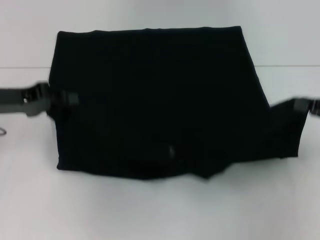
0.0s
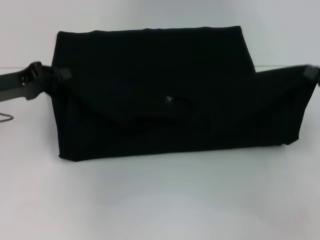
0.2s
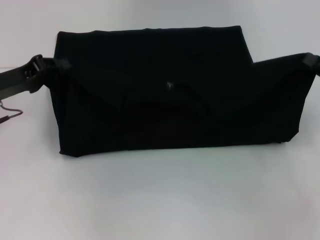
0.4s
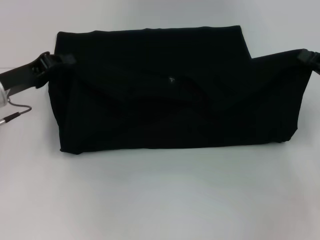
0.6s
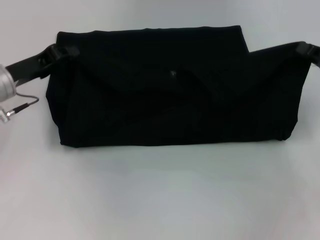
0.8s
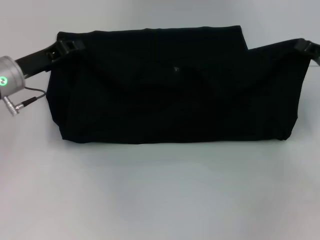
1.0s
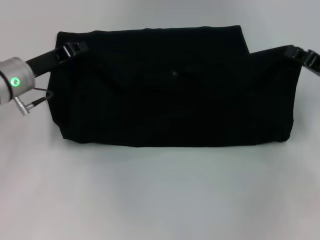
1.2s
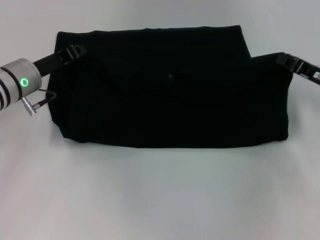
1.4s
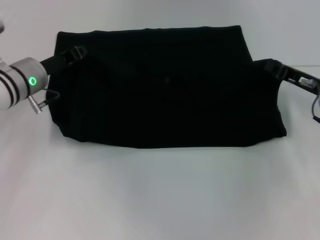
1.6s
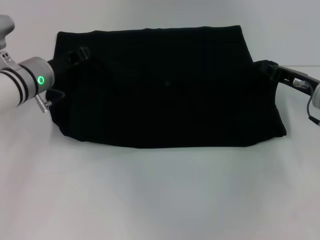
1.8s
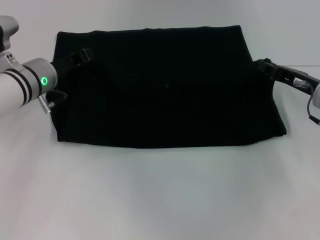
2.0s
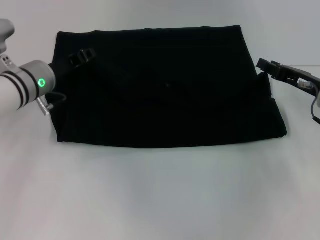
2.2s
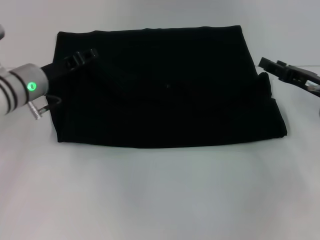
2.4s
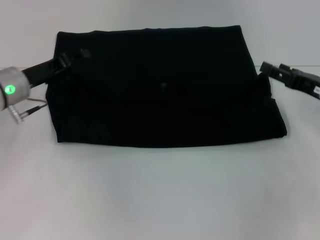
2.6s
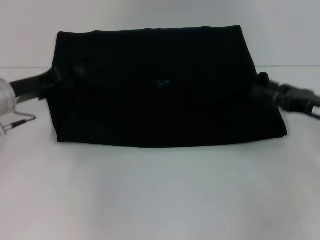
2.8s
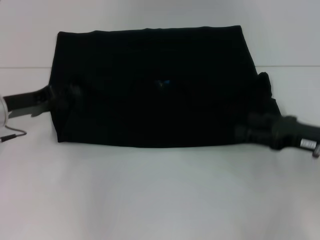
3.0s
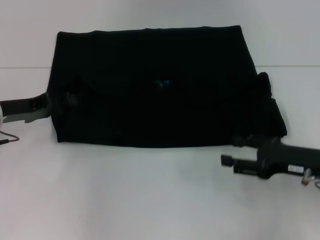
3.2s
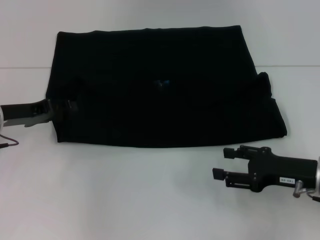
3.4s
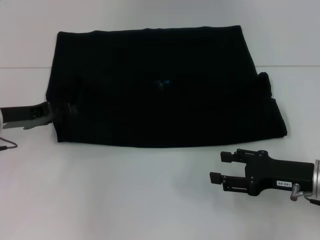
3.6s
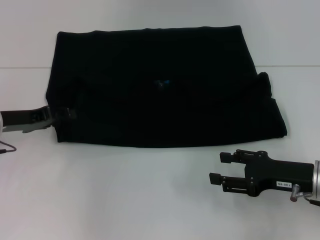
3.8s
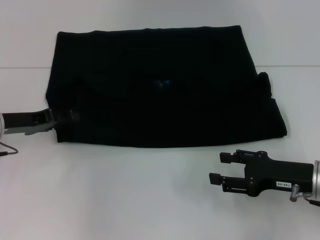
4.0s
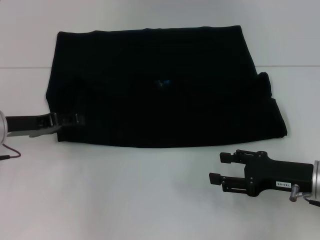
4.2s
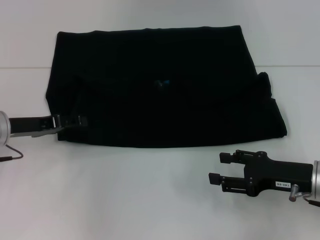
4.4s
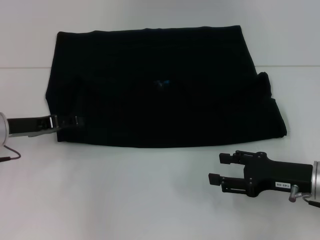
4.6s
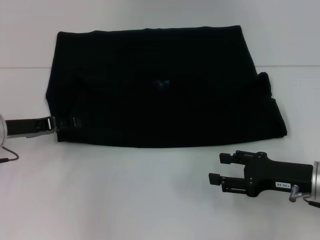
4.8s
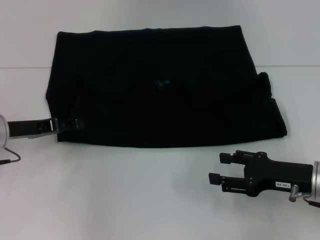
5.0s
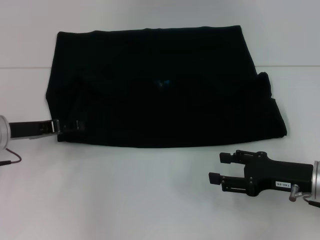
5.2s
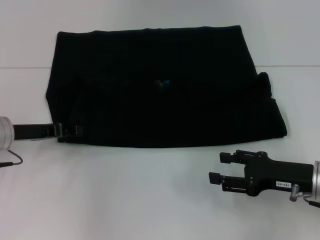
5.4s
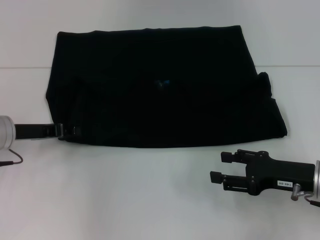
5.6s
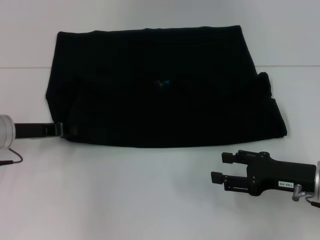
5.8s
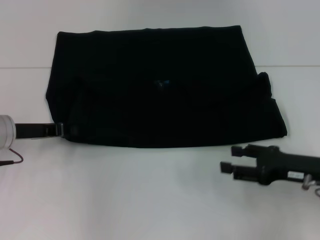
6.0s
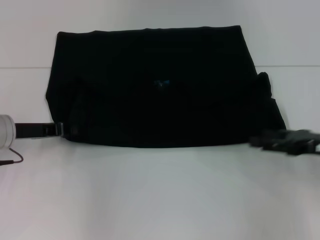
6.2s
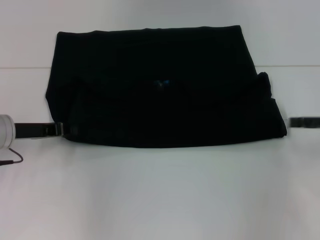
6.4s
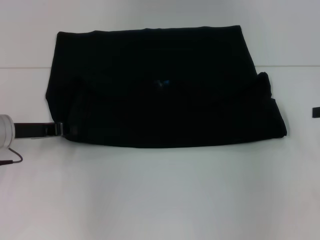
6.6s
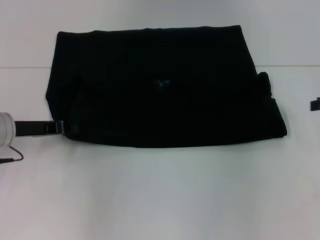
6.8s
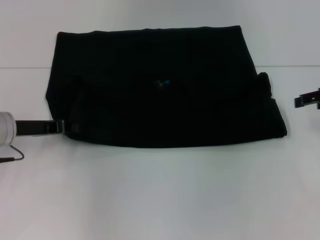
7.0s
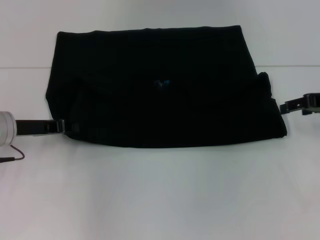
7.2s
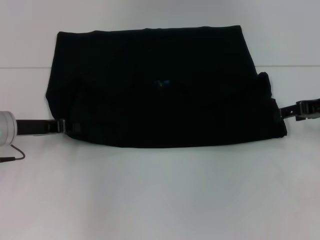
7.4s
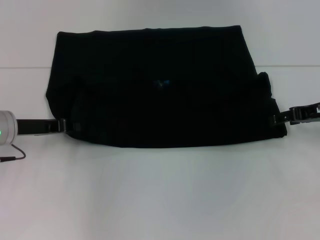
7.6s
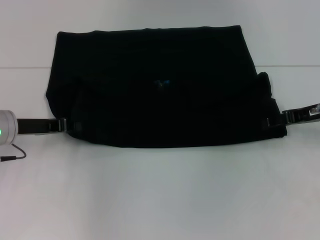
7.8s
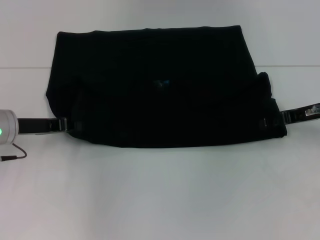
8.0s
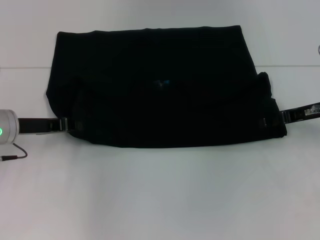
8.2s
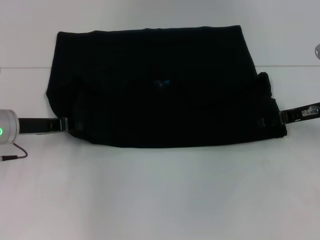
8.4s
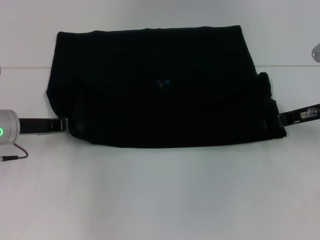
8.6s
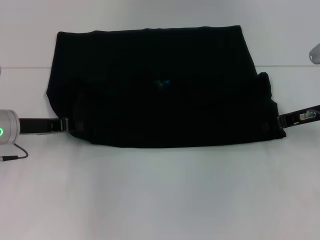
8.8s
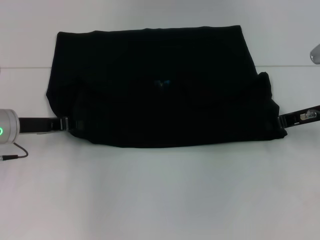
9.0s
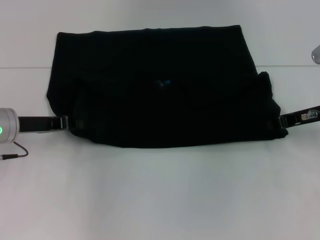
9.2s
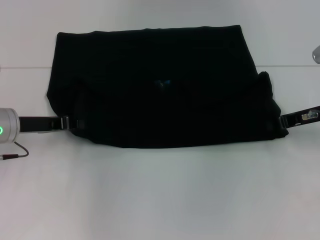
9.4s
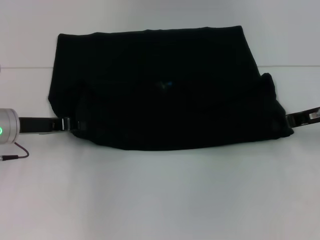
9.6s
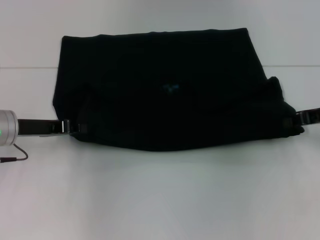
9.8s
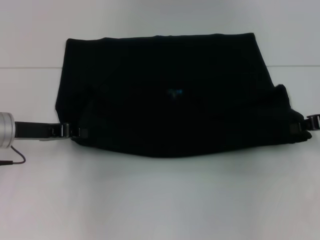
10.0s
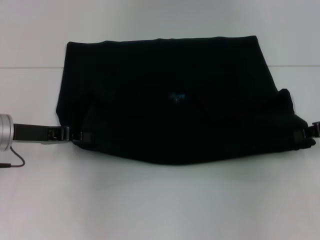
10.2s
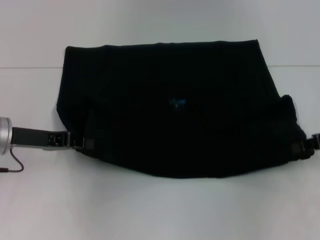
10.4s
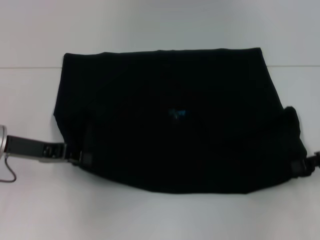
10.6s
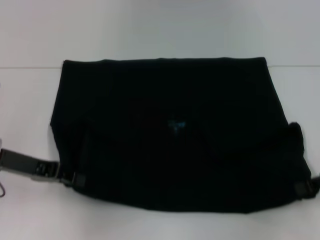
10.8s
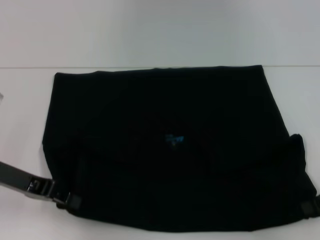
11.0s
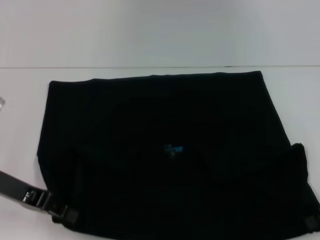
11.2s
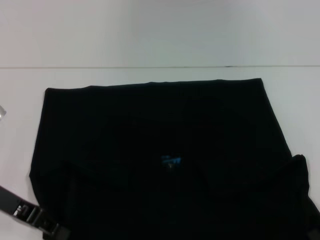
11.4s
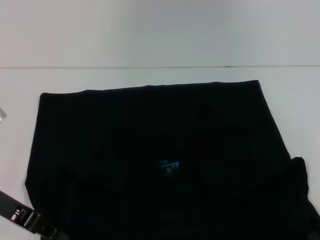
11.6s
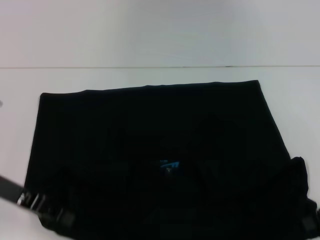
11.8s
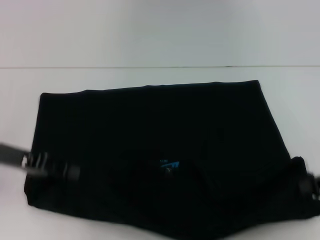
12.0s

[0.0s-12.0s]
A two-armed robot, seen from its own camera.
Step, 0.0s to 2.0s: Fold the clothes with your left hand.
Step, 0.0s to 2.0s: Fold the clothes with your right hand.
Step, 2.2s to 11.4s: Pull the clothes with your left hand.
Step, 2.2s to 11.4s: Pull the clothes with your right hand.
0.0s to 1.6s: The left gripper goes about 10 cm to the right and forward. Meanwhile the right gripper heads forward and to the left, covering roughly 10 cm.
1.6s to 3.0s: The right gripper is displaced backward by about 5 cm, and opens. Meanwhile the left gripper moves to the left, roughly 5 cm, and opens.
3.0s to 4.4s: The right gripper shifts by about 5 cm.
4.4s to 6.0s: The left gripper closes.
6.0s to 7.6s: The right gripper travels forward and upward by approximately 10 cm.
7.6s to 9.0s: The right gripper closes.
9.0s to 10.4s: The right gripper is displaced to the right by approximately 5 cm.
10.4s to 12.0s: The right gripper goes roughly 5 cm backward.

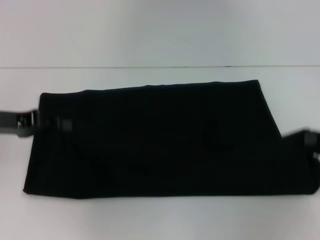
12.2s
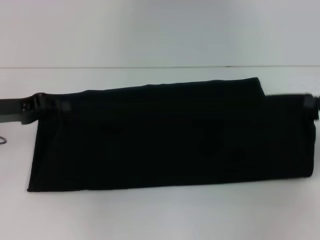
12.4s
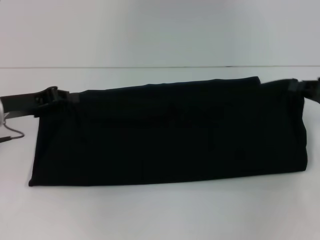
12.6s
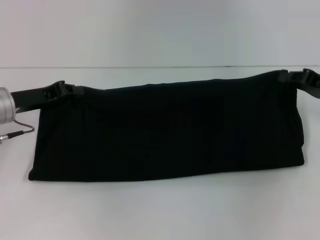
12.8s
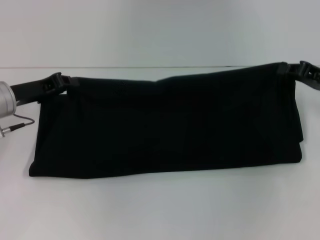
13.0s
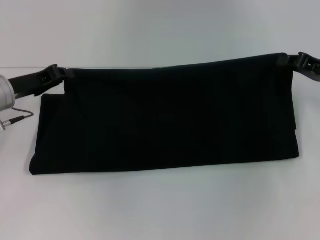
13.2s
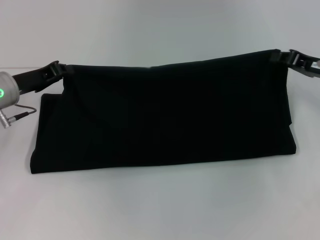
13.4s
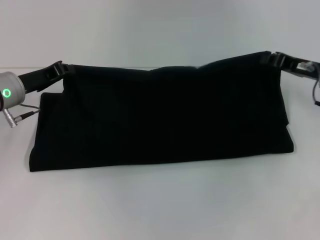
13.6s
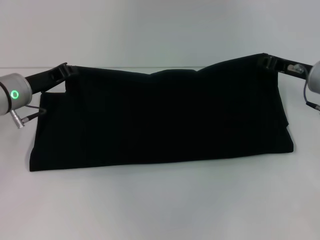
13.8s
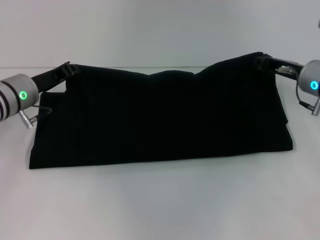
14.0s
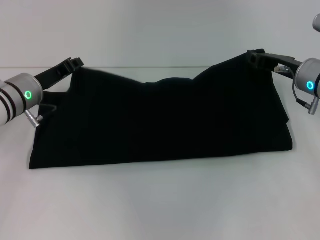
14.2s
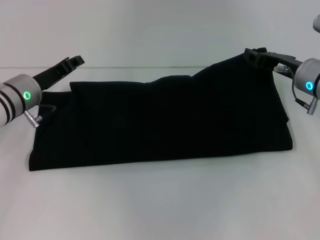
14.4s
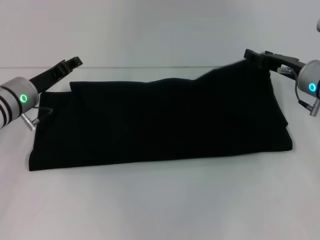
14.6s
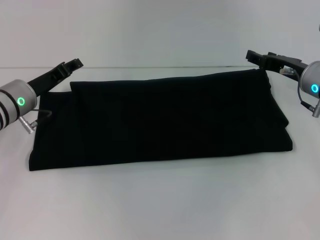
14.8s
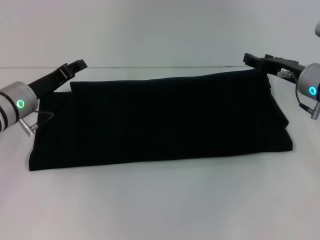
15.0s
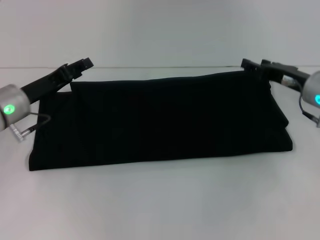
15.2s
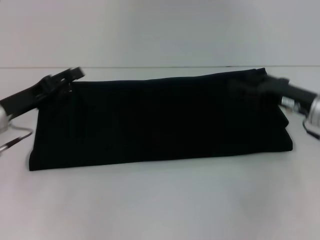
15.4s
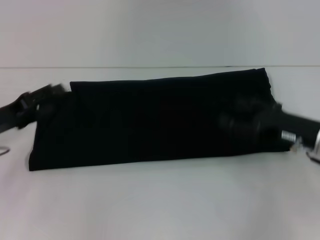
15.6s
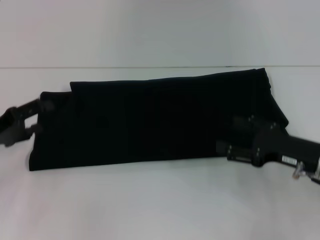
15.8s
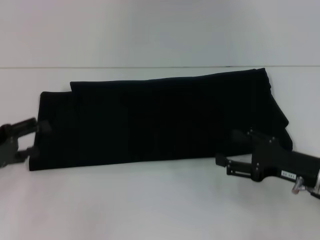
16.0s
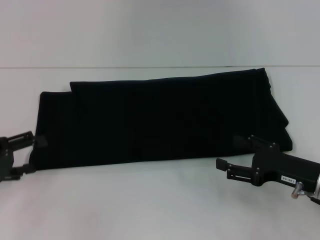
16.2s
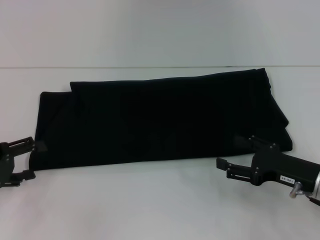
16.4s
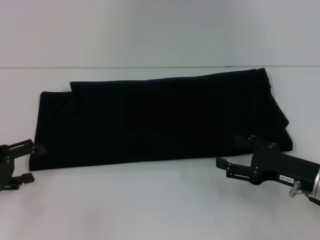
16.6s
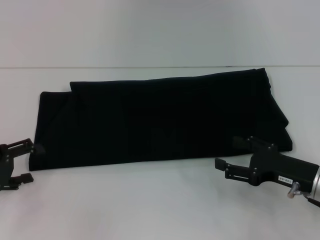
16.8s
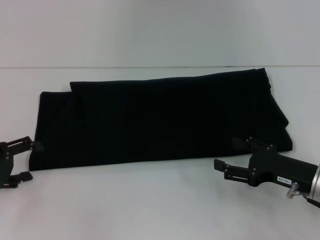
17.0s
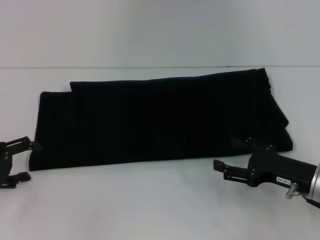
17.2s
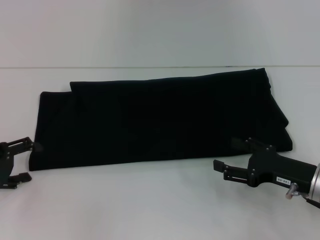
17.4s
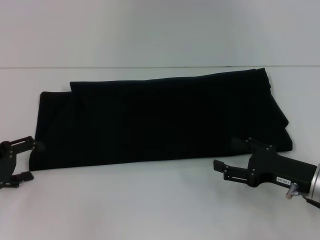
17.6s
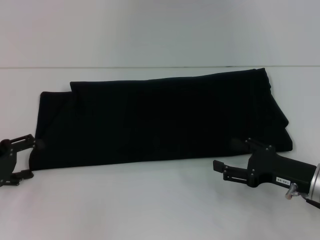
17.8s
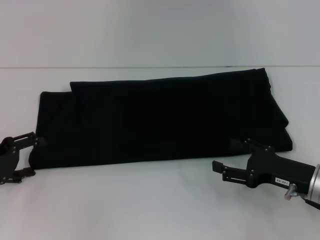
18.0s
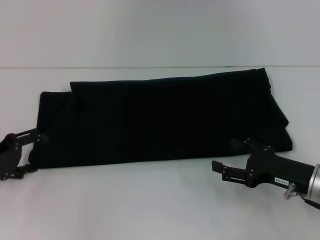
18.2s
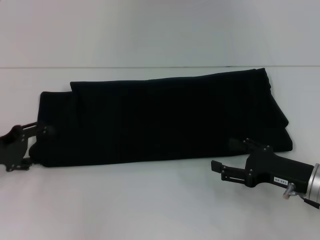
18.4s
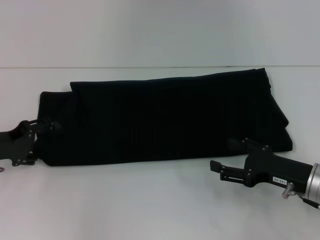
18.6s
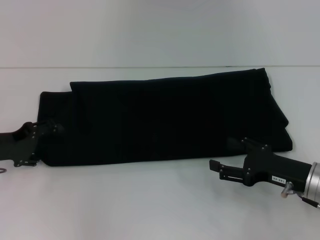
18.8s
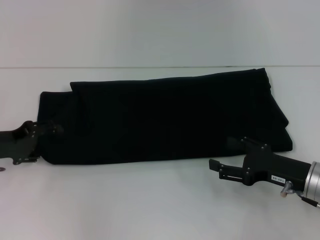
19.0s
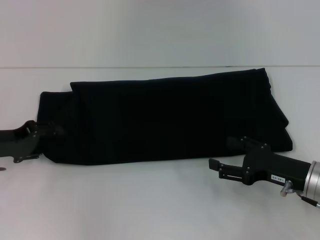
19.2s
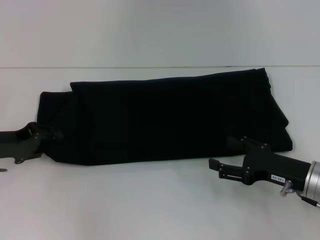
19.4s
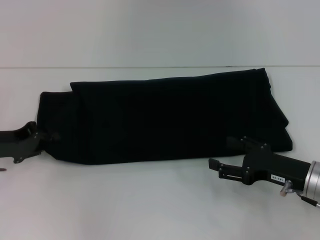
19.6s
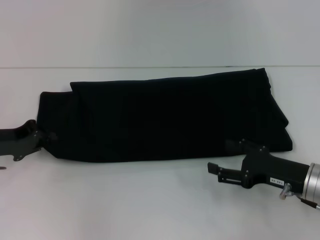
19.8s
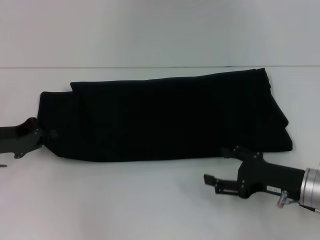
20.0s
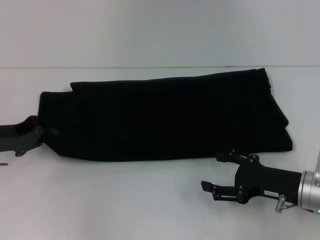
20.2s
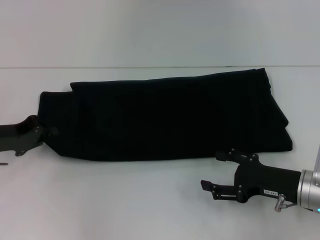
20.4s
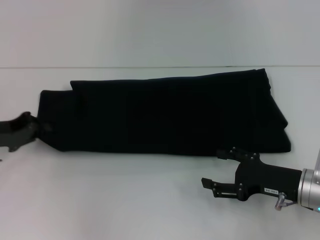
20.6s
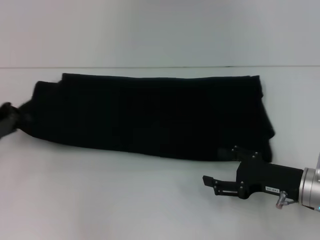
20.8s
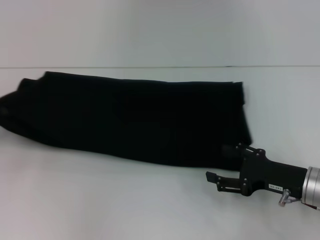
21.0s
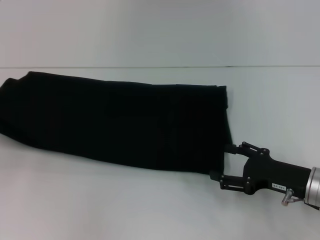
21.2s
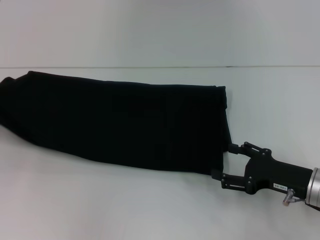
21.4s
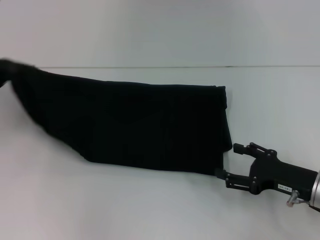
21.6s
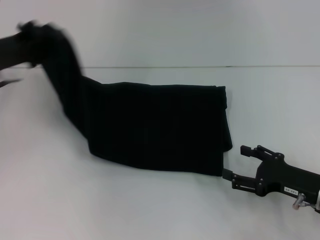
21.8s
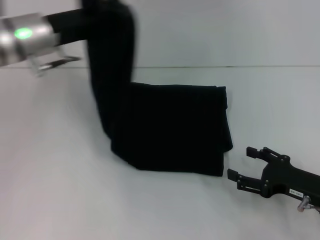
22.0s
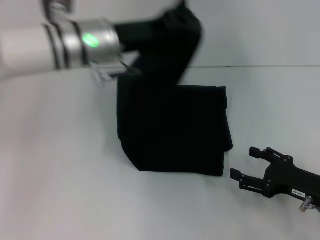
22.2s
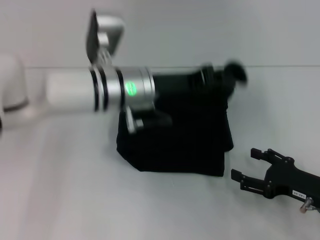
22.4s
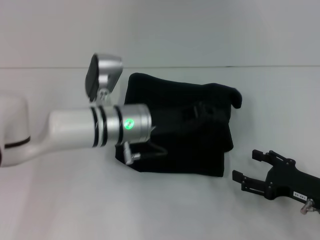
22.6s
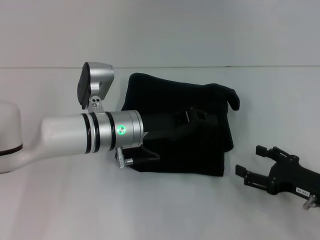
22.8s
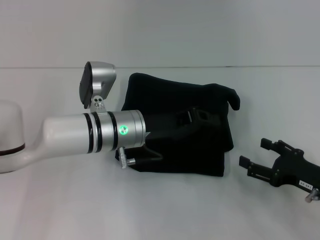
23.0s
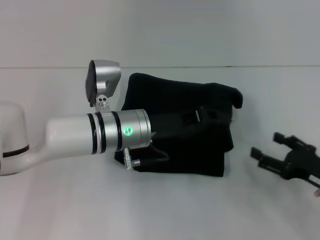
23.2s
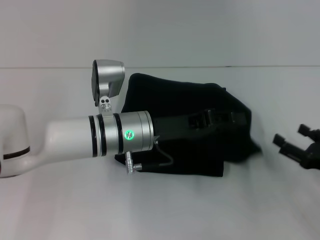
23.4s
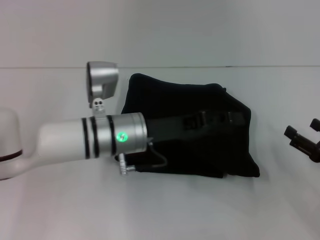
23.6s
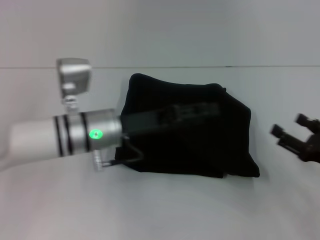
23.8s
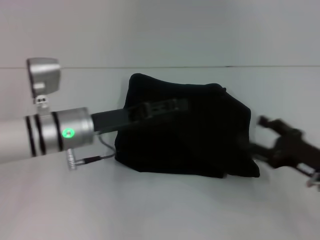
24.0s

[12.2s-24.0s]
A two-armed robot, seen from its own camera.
Step, 12.2s to 14.8s: Fold the clothes with your right hand.
Step, 12.2s to 23.4s: Fold the clothes with your left hand.
12.2s to 13.6s: The left gripper heads forward, covering roughly 5 cm, while the right gripper moves forward and to the left, some 15 cm.
13.6s to 15.2s: The left gripper opens; the right gripper opens.
15.2s to 16.6s: The right gripper is displaced backward and downward by some 15 cm. The left gripper shifts approximately 15 cm backward and to the left, and opens.
16.6s to 18.2s: The grippers make only small movements.
18.2s to 19.6s: The left gripper closes.
19.6s to 21.0s: The left gripper moves to the left, approximately 5 cm, and closes.
21.0s to 22.6s: The left gripper is displaced to the right by some 30 cm.
22.6s to 24.0s: The left gripper goes about 10 cm to the left, and opens up.
